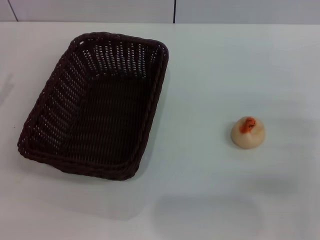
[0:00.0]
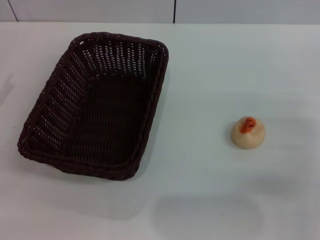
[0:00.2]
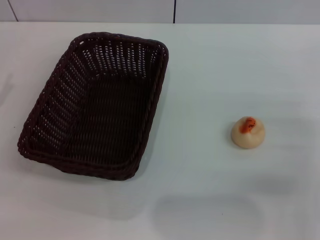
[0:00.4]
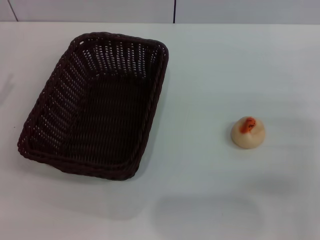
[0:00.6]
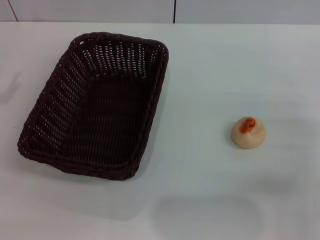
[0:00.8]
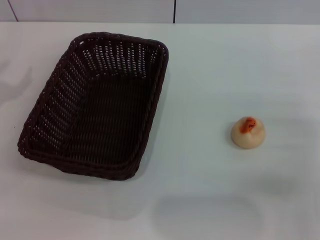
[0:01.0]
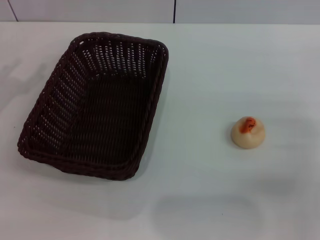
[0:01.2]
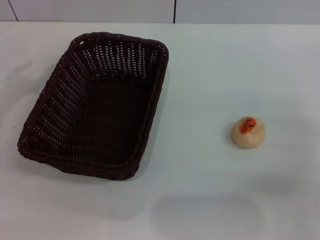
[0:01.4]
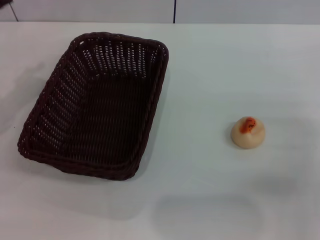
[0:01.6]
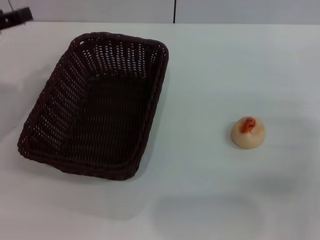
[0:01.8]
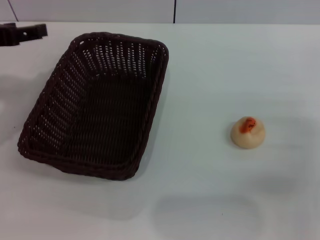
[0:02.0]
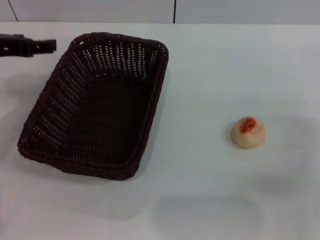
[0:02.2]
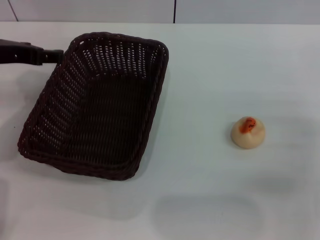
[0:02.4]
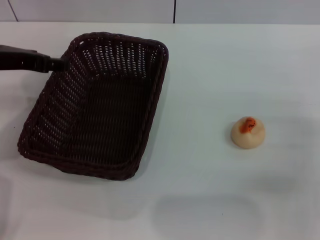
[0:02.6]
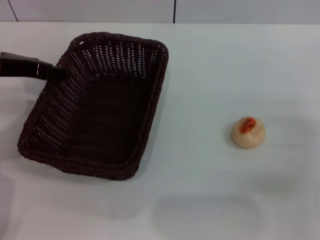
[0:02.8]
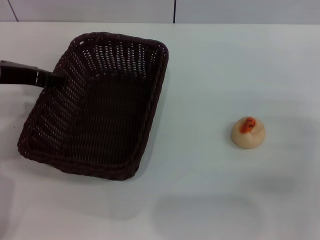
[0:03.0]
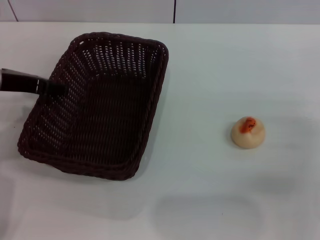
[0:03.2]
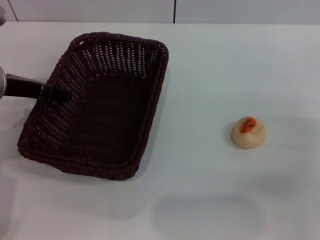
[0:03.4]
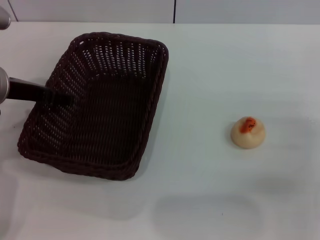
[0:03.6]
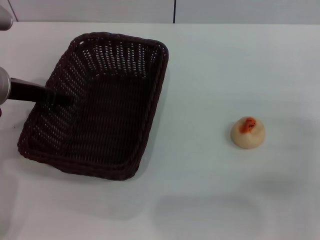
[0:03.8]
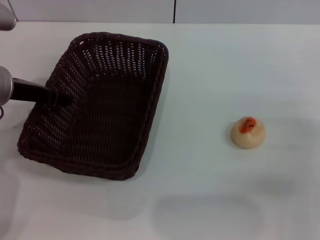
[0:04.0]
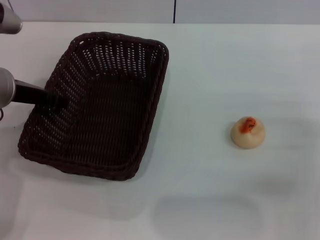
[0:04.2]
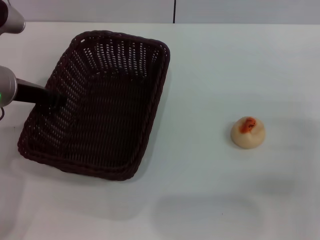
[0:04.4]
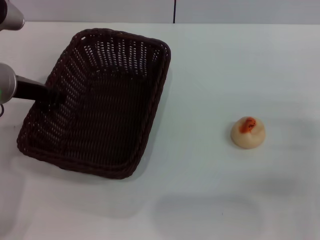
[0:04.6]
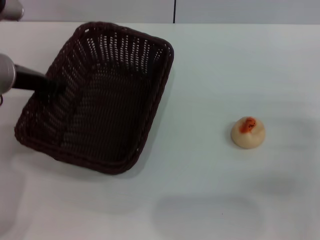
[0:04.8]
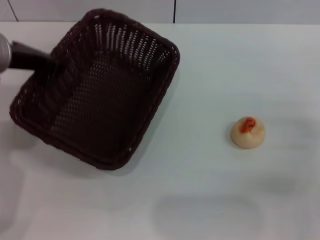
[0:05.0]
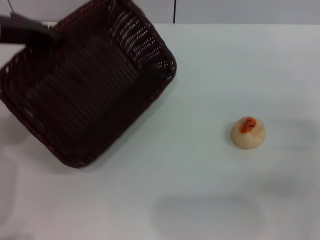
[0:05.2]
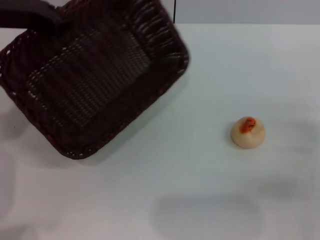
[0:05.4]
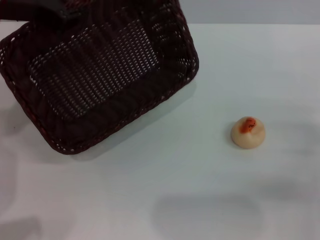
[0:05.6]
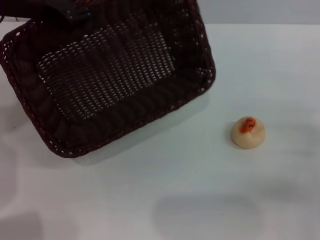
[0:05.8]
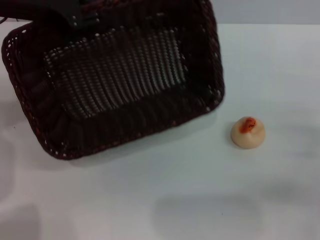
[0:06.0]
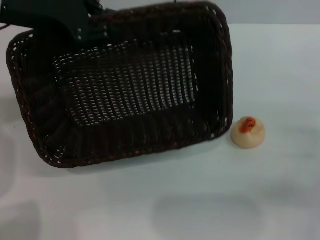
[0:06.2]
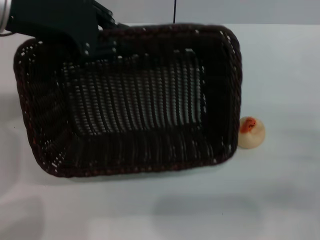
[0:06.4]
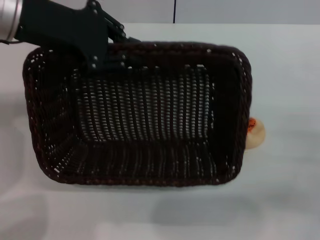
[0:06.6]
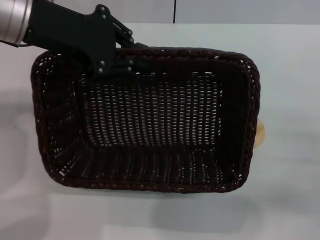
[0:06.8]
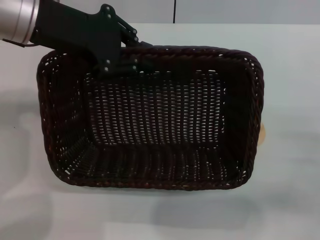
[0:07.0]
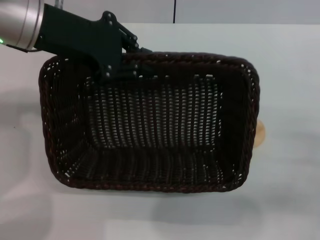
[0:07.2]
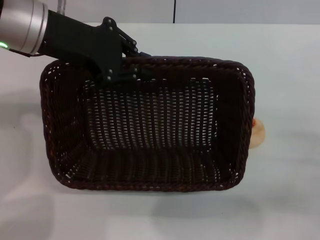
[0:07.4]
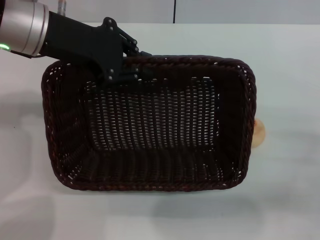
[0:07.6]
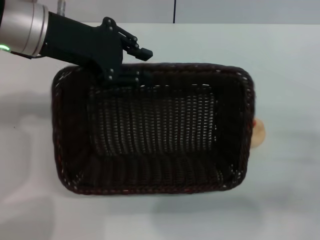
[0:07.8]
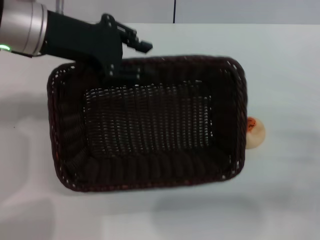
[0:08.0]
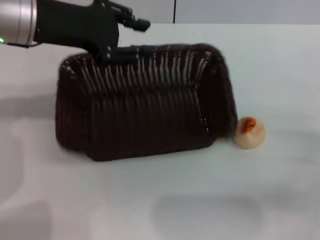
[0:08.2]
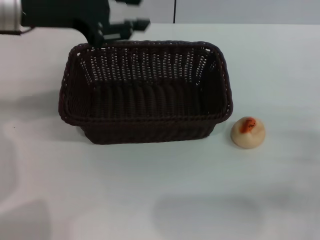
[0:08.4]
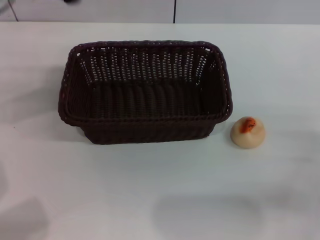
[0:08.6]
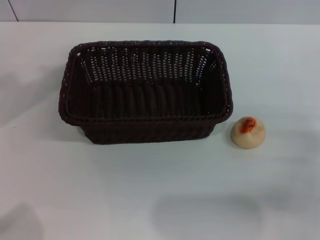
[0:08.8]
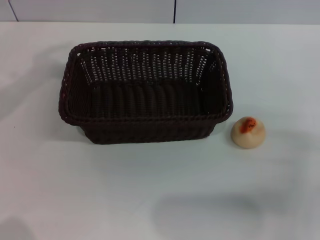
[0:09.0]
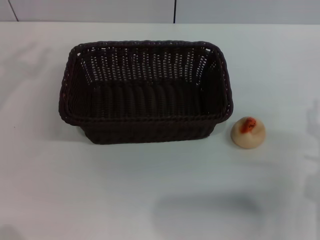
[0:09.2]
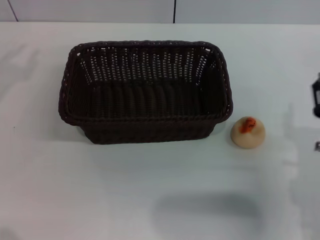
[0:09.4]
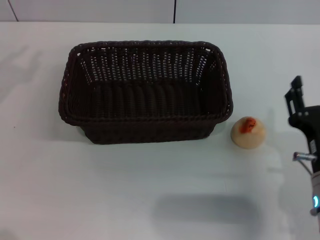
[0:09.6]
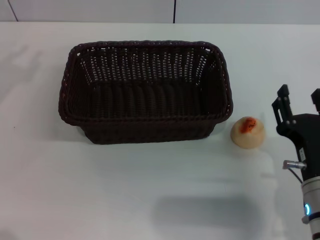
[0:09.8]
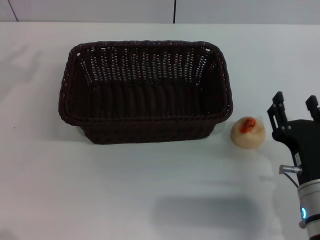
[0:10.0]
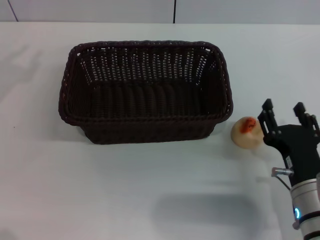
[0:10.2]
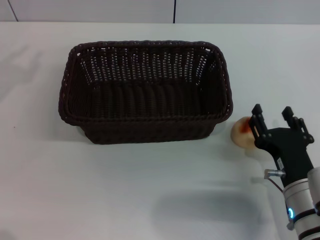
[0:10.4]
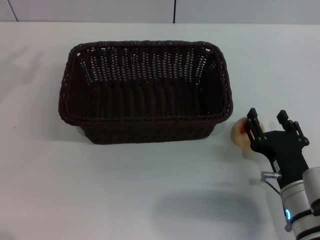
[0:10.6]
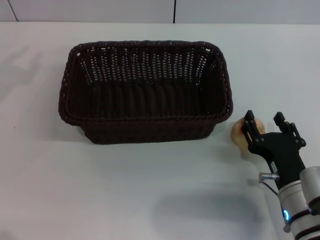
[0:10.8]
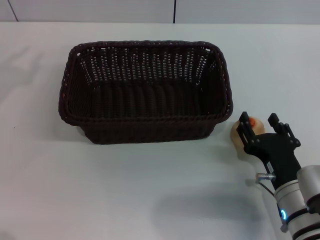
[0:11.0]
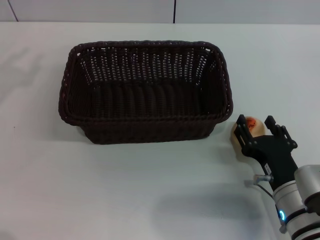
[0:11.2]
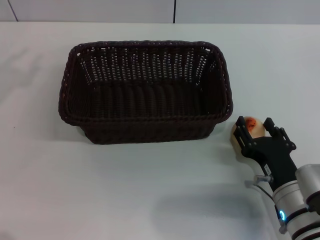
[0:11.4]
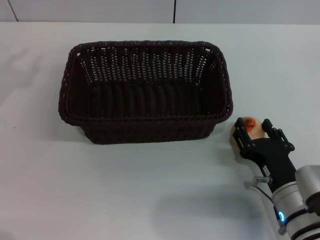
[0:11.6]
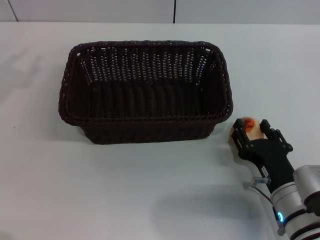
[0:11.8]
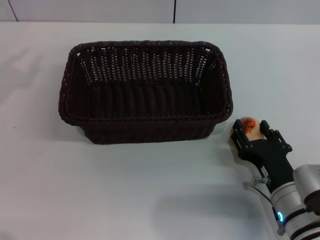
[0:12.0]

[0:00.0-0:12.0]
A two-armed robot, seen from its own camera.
Step, 0:00.0 to 0:08.2: Move the basket to the center of view with the left gripper.
0:01.6 to 0:03.0: The left gripper heads to the right, covering some 10 cm.
0:03.0 to 0:04.4: The left gripper closes.
0:04.4 to 0:06.0: The left gripper travels upward by roughly 10 cm.
0:06.0 to 0:07.6: The left gripper ends up roughly 5 cm from where it was.
0:07.6 to 0:09.0: The left gripper heads to the left, covering some 15 cm.
0:09.0 to 0:10.4: The right gripper heads to the left, covering about 10 cm.
0:10.4 to 0:12.0: The grippers make only small movements.

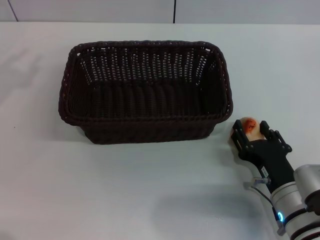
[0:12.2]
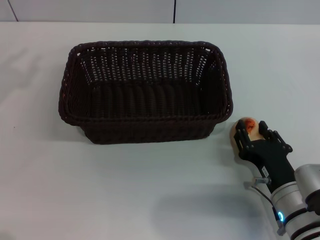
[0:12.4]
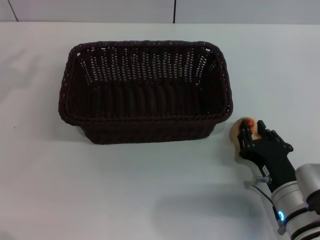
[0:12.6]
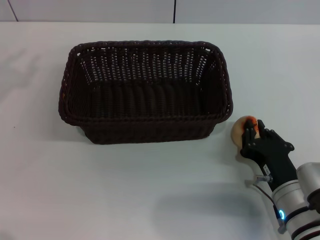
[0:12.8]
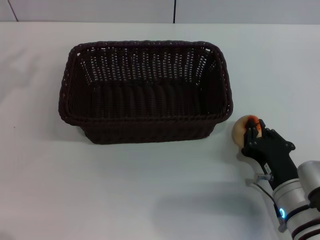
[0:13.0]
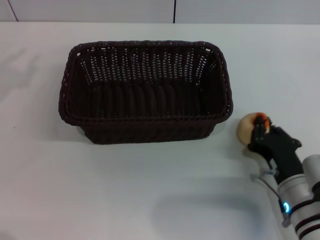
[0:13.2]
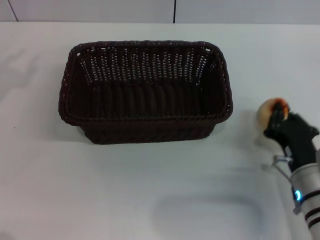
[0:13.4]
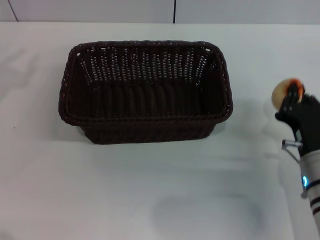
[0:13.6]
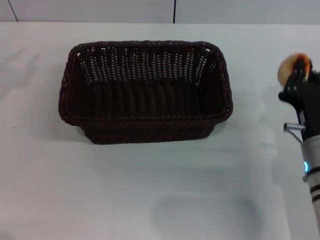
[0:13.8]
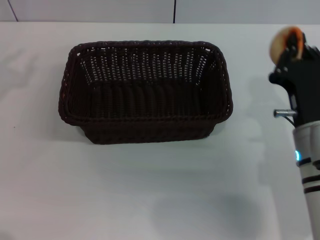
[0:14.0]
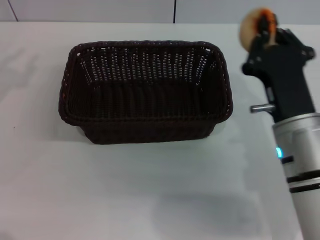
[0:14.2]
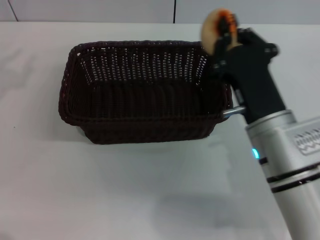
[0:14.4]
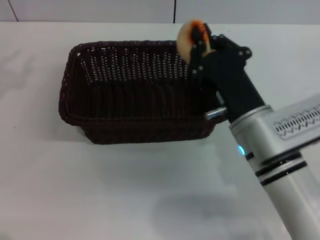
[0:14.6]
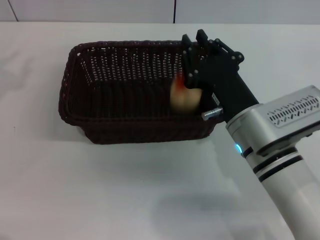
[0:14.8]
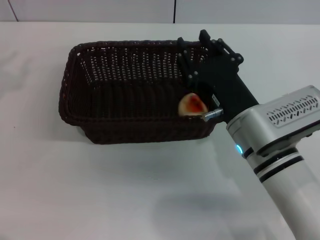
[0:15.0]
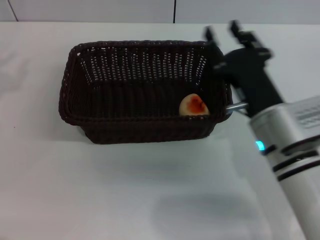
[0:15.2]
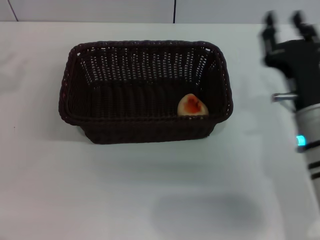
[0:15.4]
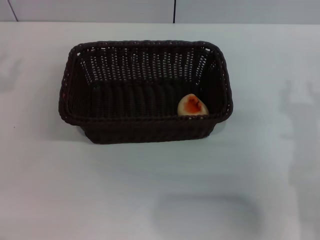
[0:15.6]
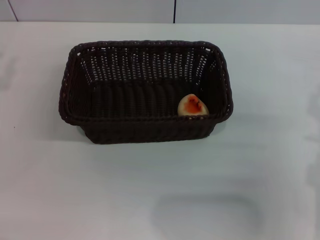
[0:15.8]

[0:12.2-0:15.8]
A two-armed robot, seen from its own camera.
Step, 0:14.0 to 0:15.0: Place the egg yolk pastry into the basket with the right gripper.
0:12.2 to 0:14.0: The right gripper heads upward, covering some 5 cm, and closes its fingers.
0:14.0 to 0:15.8: The right gripper shifts approximately 5 cm to the right, and opens up.

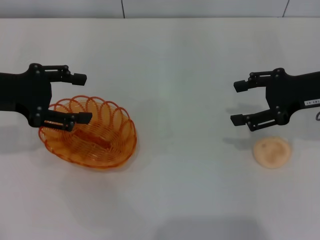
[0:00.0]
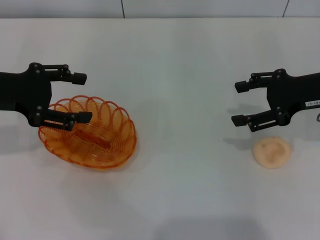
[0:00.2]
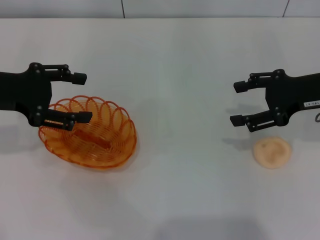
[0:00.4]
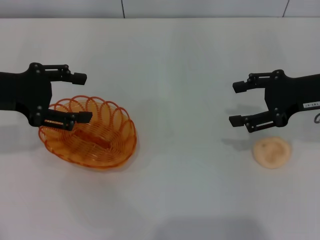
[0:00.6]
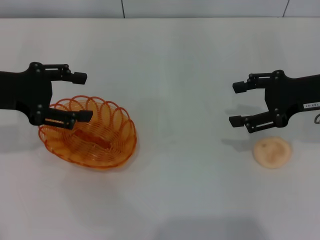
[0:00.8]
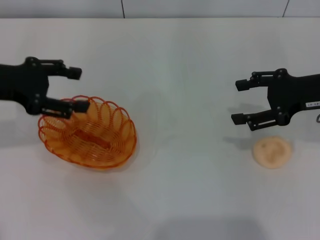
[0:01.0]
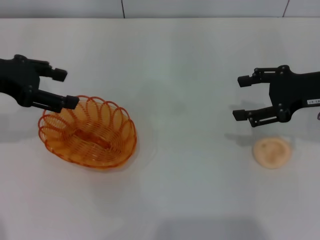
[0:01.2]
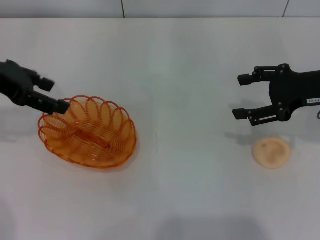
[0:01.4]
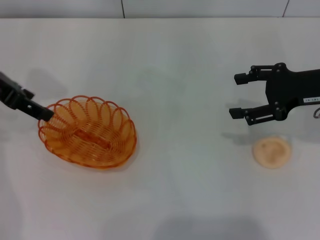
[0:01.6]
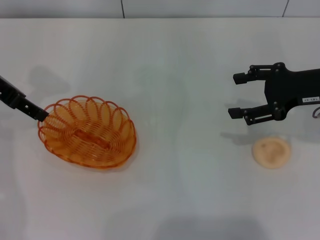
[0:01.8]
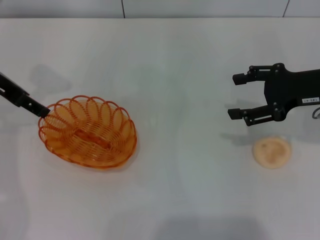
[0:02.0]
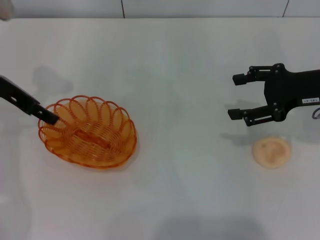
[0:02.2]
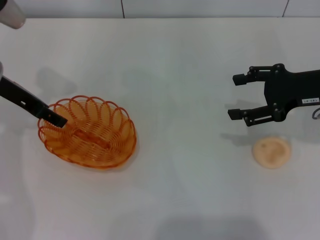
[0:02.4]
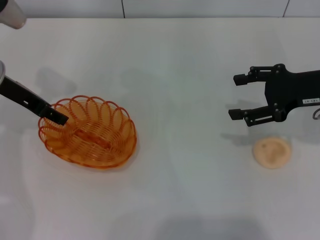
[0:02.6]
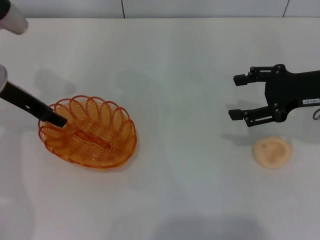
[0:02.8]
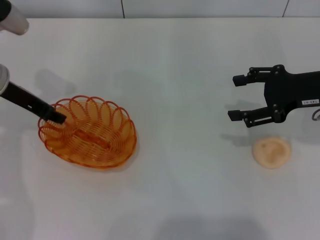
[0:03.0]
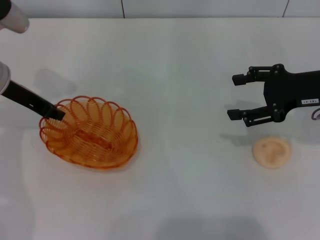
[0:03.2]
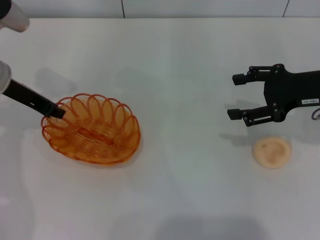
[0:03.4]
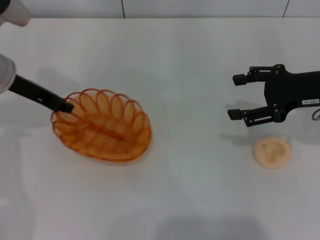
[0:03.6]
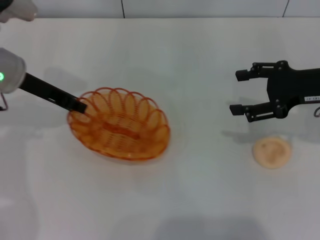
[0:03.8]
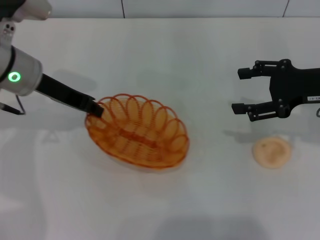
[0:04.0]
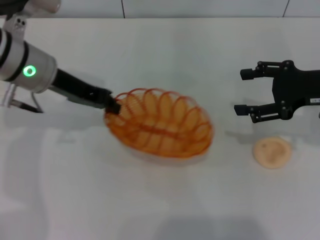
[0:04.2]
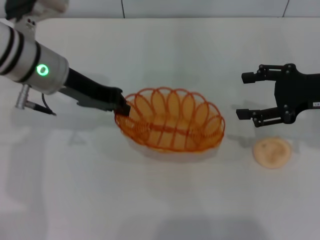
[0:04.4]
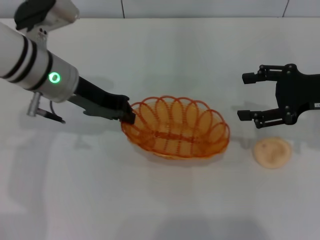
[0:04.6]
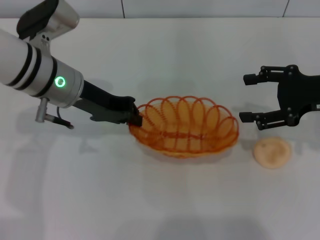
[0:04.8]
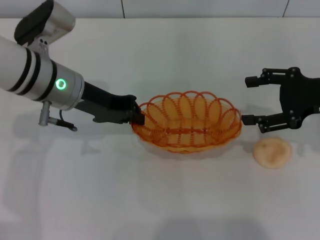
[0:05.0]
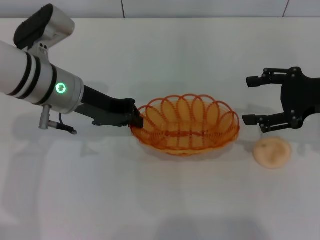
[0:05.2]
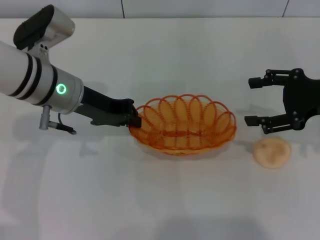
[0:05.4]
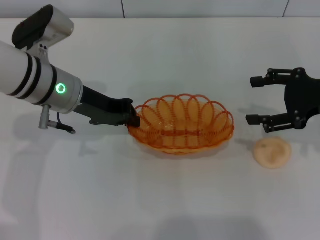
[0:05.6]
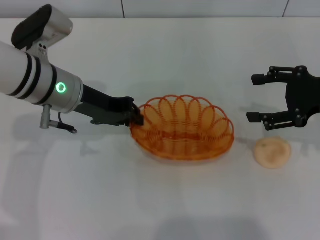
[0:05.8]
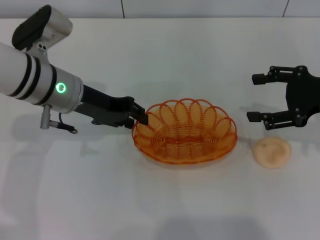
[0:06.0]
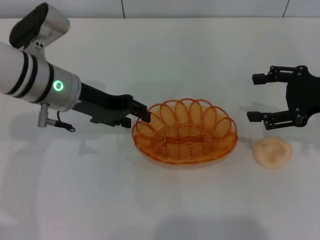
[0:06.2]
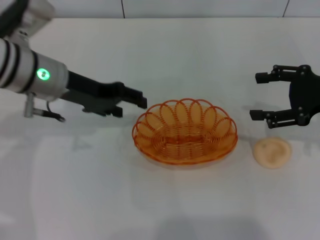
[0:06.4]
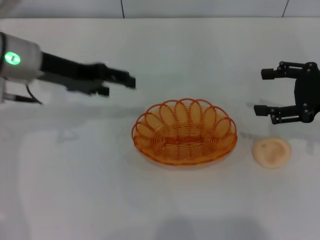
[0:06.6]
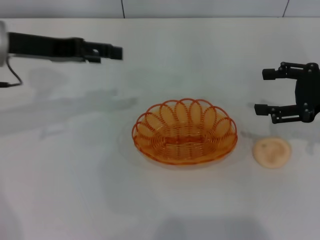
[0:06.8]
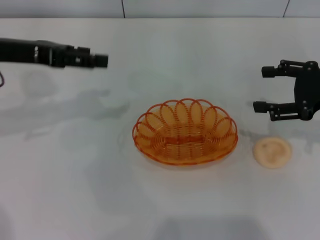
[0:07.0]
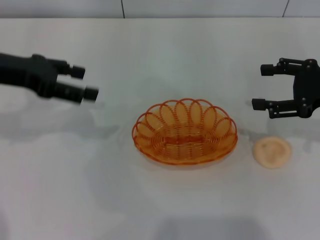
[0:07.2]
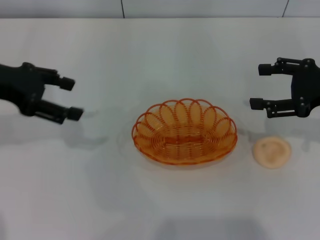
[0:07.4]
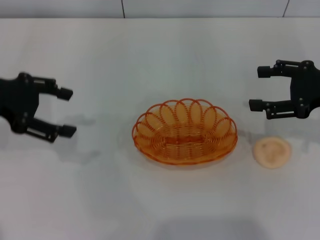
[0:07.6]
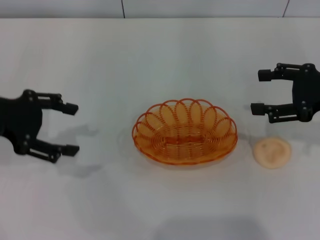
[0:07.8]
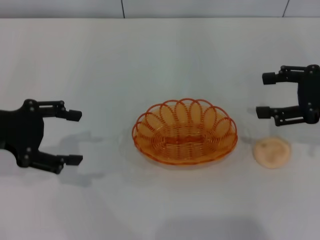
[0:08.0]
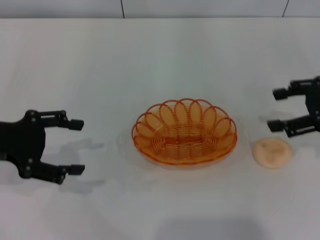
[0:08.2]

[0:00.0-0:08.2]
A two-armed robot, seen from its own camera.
Step, 0:00.0 to 0:03.6: Pick up the basket with the left gripper.
Step, 0:03.8 to 0:06.2: Place the basket in the center of view with the left gripper.
0:00.0 to 0:01.6: The left gripper moves upward, about 5 cm.
0:01.6 to 0:03.2: The left gripper heads downward, covering roughly 5 cm, and closes up.
0:03.2 to 0:05.0: The left gripper moves to the right, about 10 cm.
0:05.0 to 0:06.6: The left gripper shifts by some 5 cm, and opens its fingers.
0:06.6 to 0:08.2: The left gripper moves to the left and backward, roughly 15 cm.
